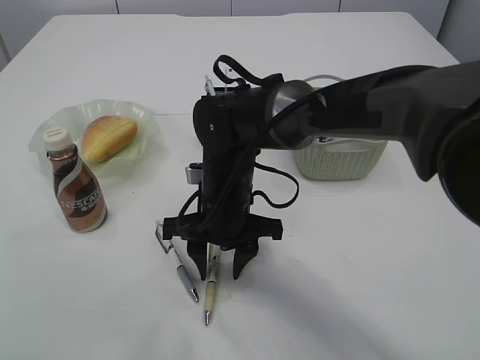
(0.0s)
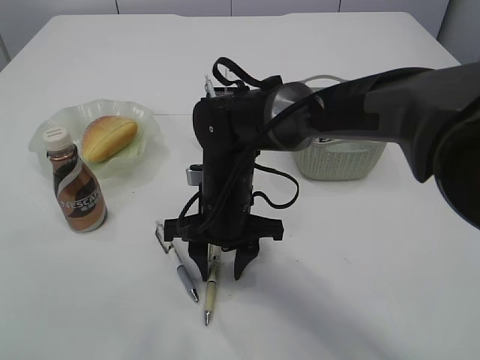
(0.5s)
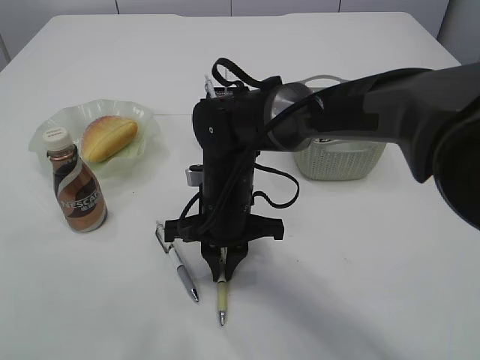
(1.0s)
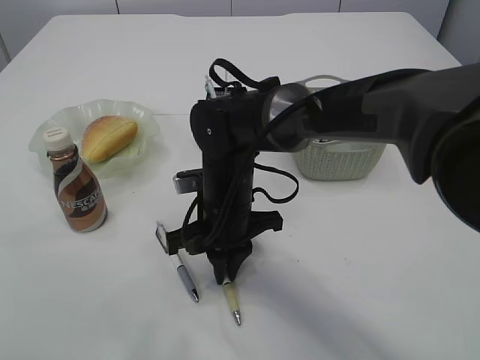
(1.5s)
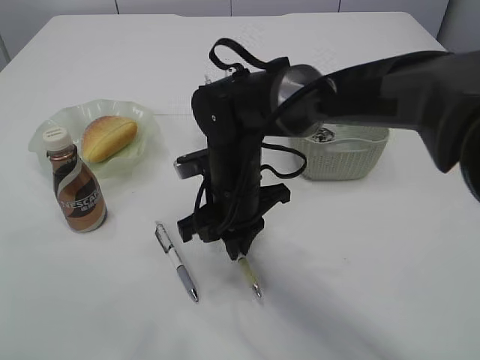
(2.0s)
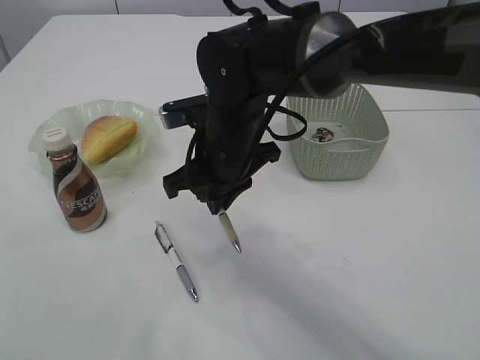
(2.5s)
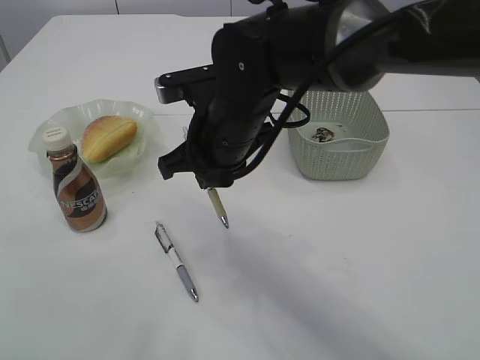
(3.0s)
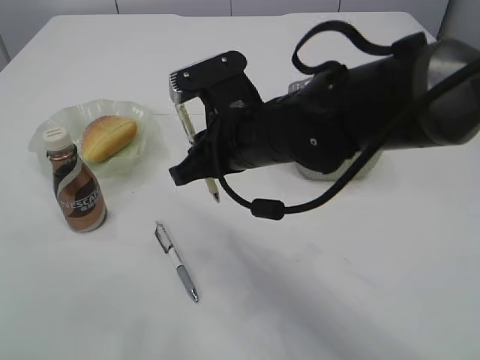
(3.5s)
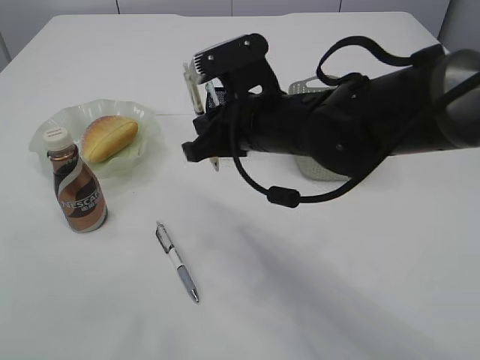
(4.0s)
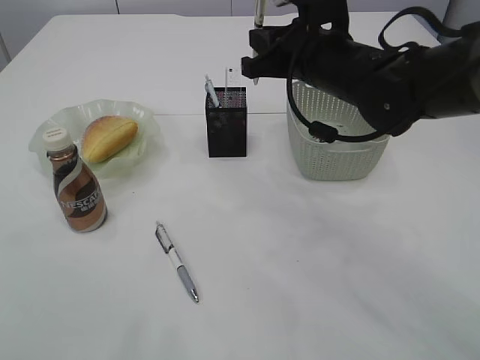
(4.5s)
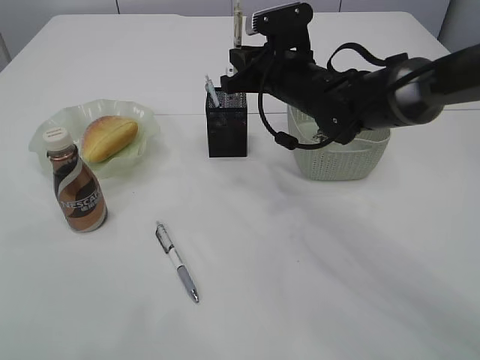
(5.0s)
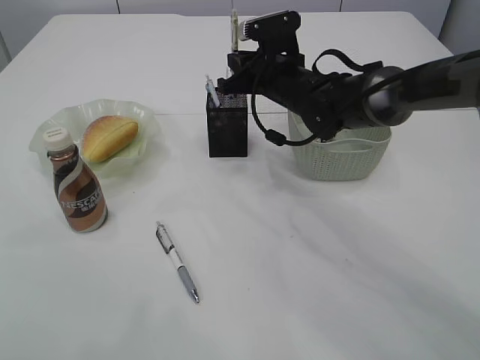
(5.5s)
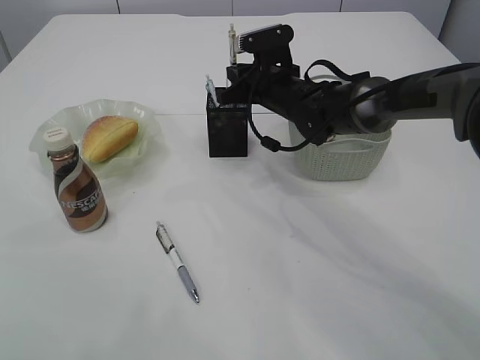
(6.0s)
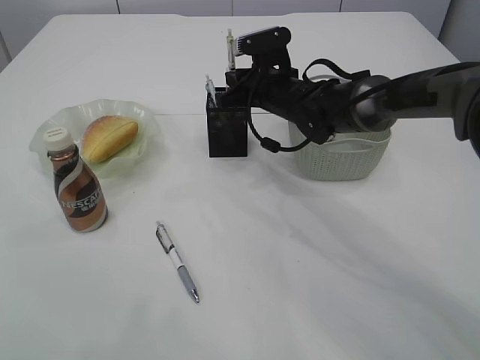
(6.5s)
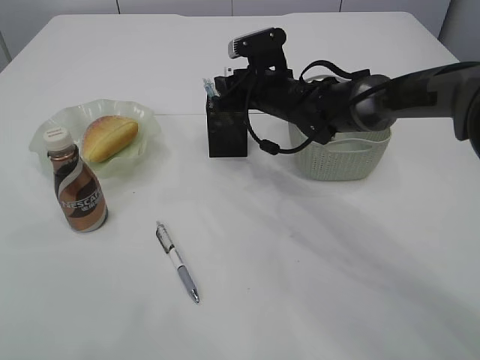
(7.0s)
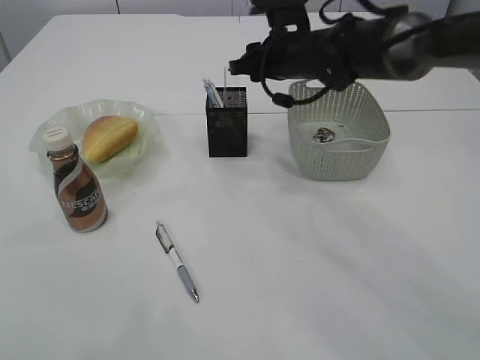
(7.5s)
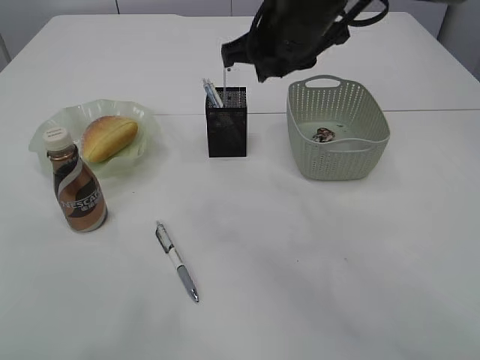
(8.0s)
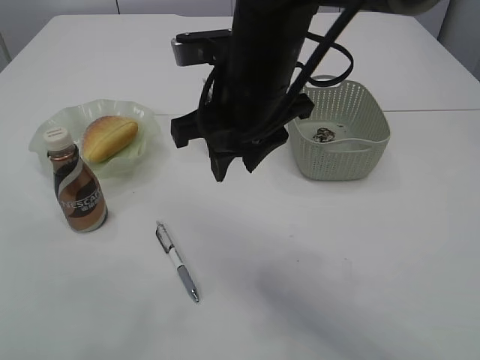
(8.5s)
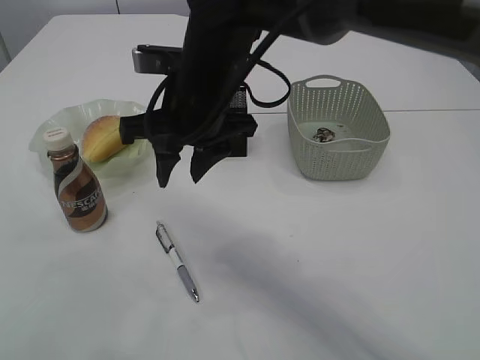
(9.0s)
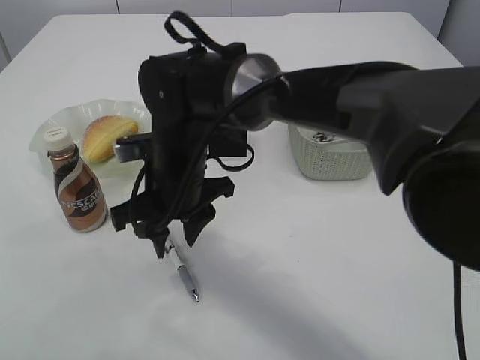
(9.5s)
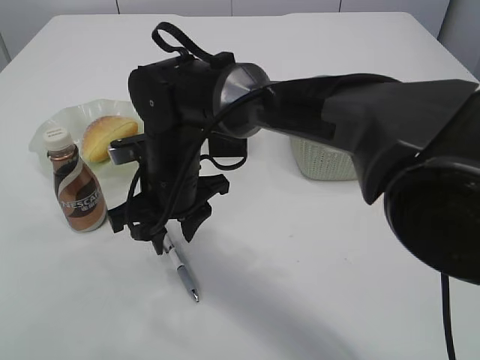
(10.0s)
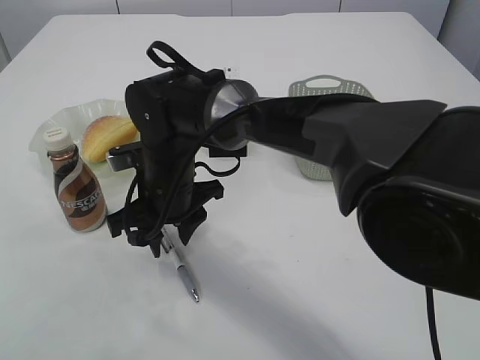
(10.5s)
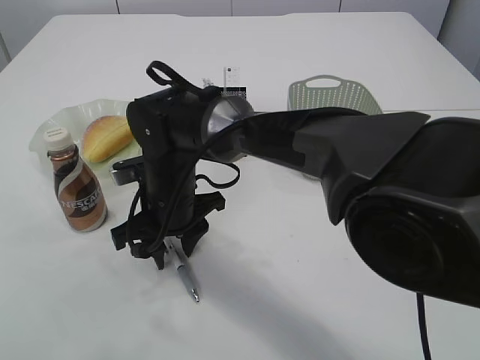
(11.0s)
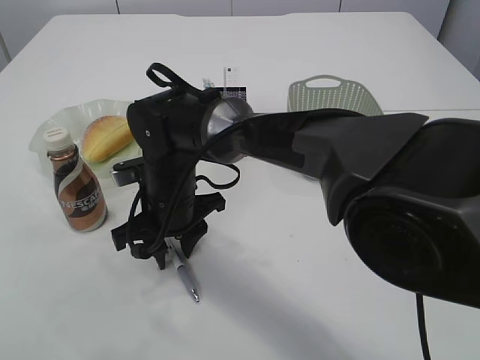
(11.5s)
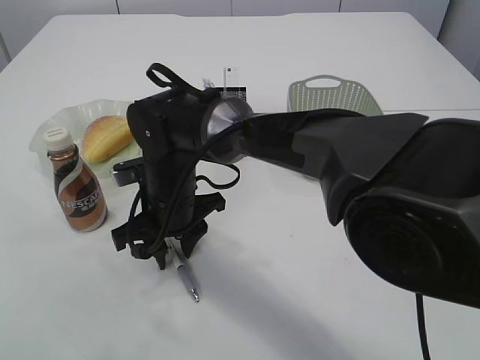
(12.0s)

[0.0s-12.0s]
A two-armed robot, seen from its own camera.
Step, 0.0s to 2.0s: Pick up the pen with right arm.
Step, 2.5s to 7.5s: Place the pen into the pen holder.
0.0s to 2.0s: The right gripper closes up.
2.0s to 4.0s: The right gripper travels upward by some 10 cm.
4.0s to 6.0s: The right gripper travels forward by approximately 15 cm.
6.0s to 8.0s: The right gripper goes roughly 15 cm upward and backward.
8.0s to 10.0s: The right gripper is displaced to the left and downward by roughly 20 cm.

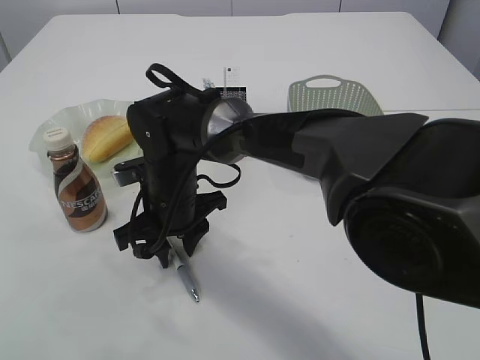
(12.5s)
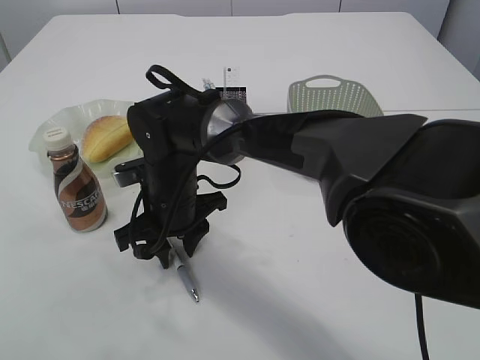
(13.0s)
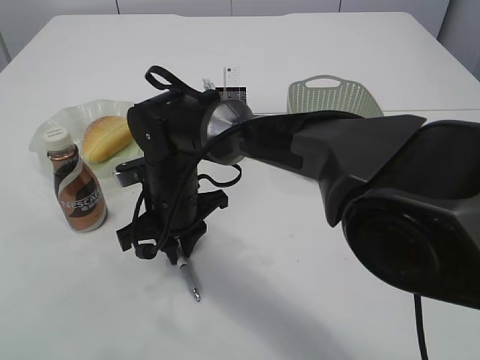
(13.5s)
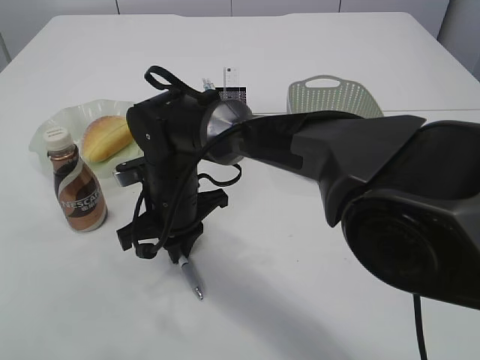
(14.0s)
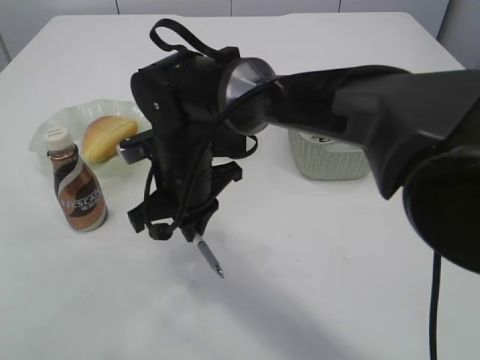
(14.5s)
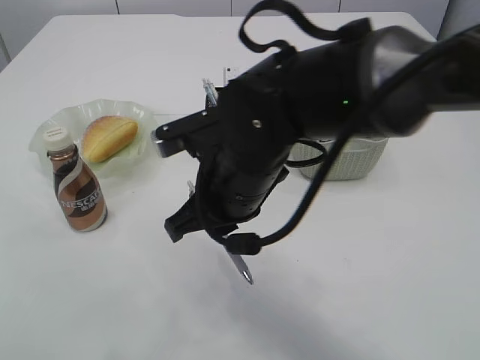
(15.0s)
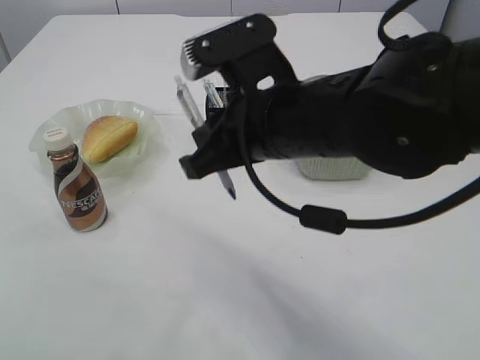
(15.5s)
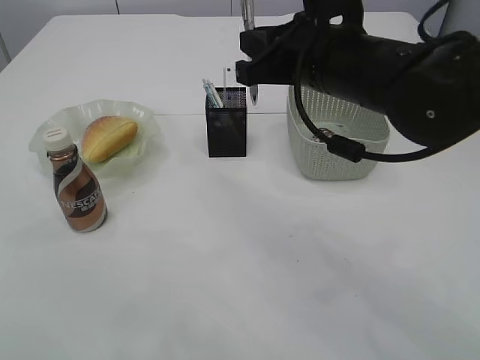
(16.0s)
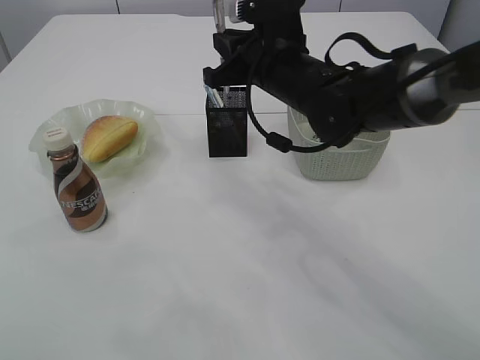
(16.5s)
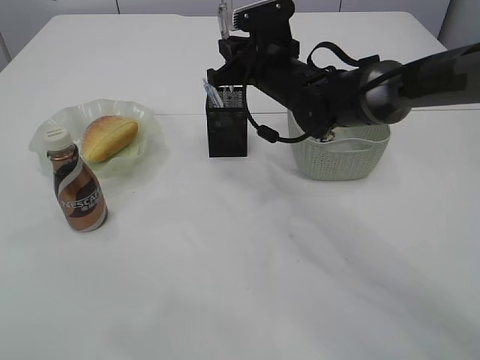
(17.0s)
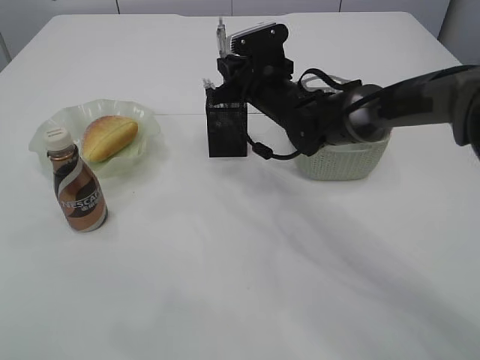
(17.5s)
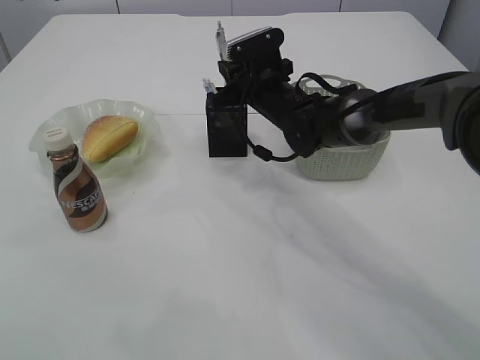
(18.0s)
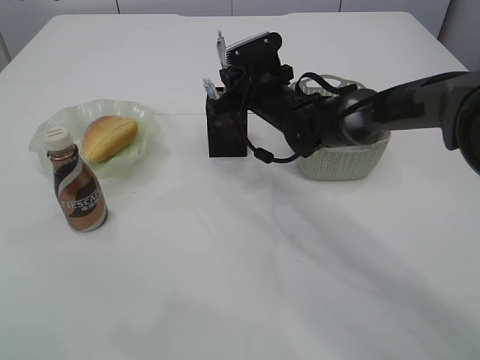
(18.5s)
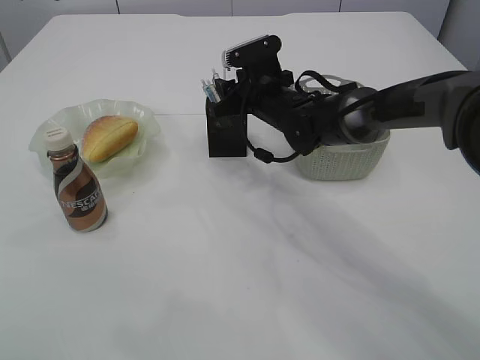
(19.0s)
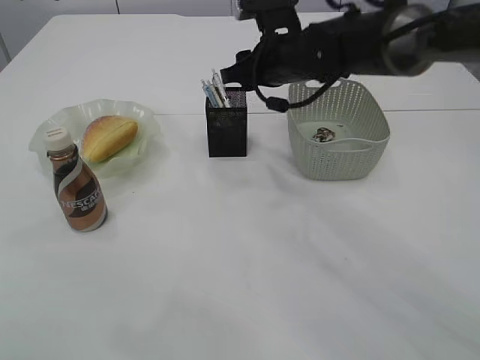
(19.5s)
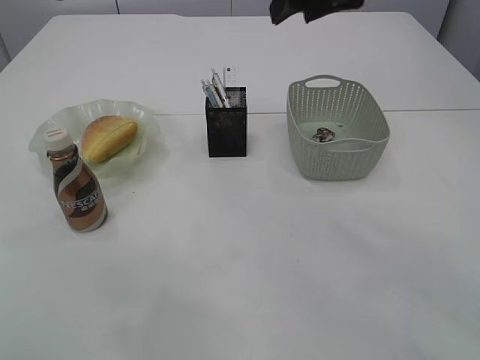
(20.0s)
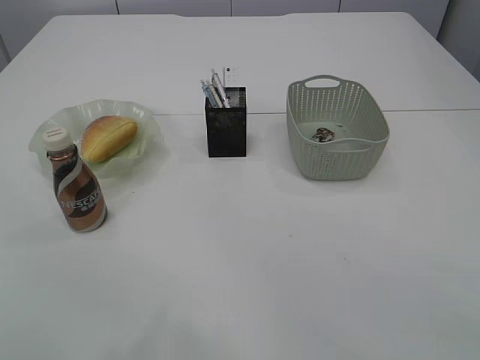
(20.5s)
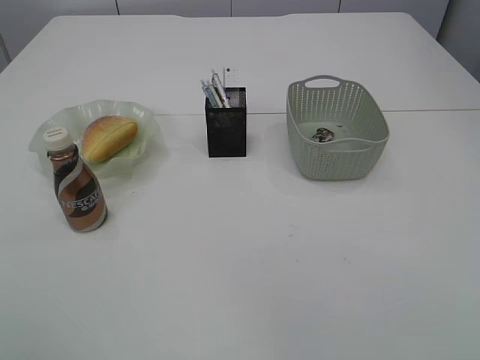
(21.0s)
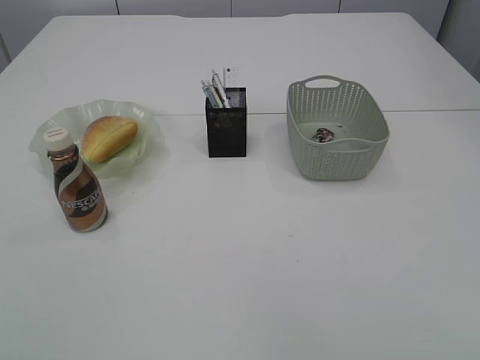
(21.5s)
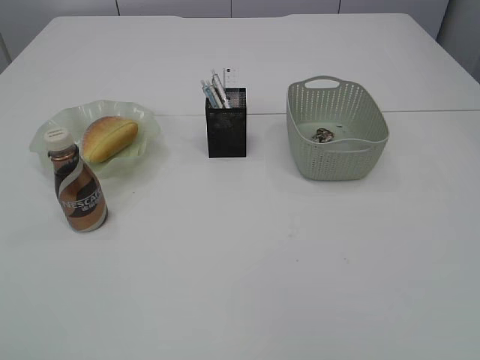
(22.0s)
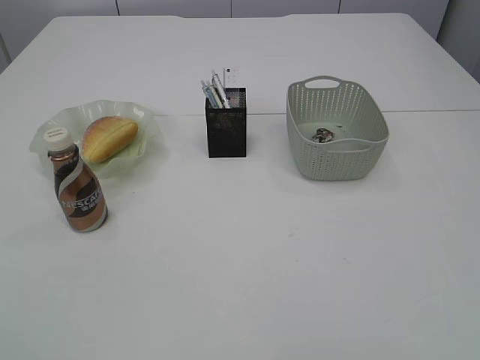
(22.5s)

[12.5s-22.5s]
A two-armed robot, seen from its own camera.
Step, 12.5s to 14.5s: Pick up the pen with right arm.
Step, 15.0s to 19.5s: Place the pen into the pen holder.
12.5s to 14.5s: The right gripper closes its fingers.
14.5s to 16.5s: The right gripper travels to the right, upward and forward by some 15 cm.
16.5s to 18.5s: The right gripper heads forward and downward, covering approximately 10 cm.
18.5s to 20.5s: The right gripper shifts roughly 40 cm upward and backward, and opens its fingers; the left gripper opens its fingers.

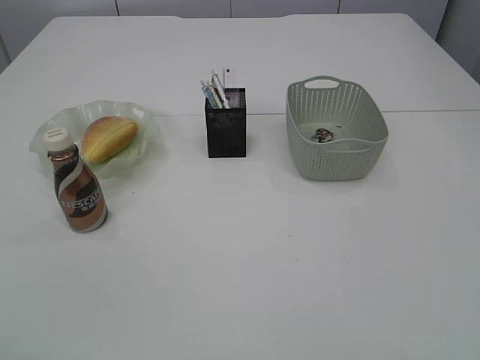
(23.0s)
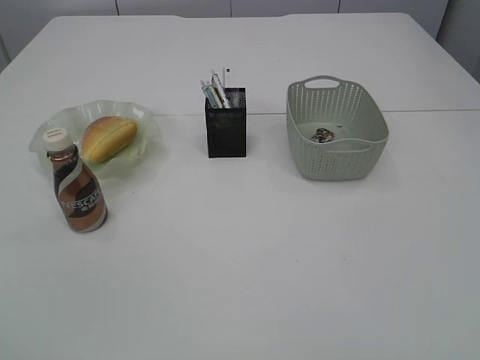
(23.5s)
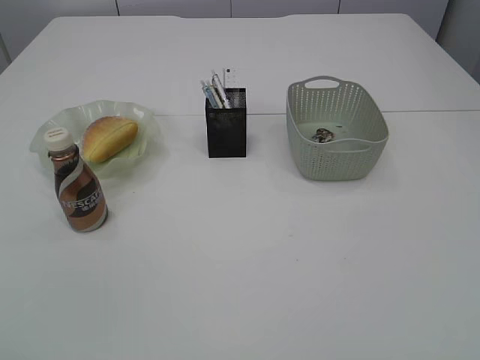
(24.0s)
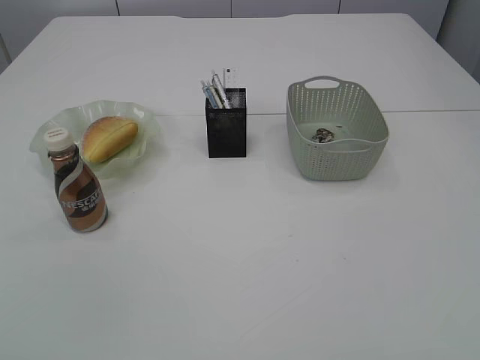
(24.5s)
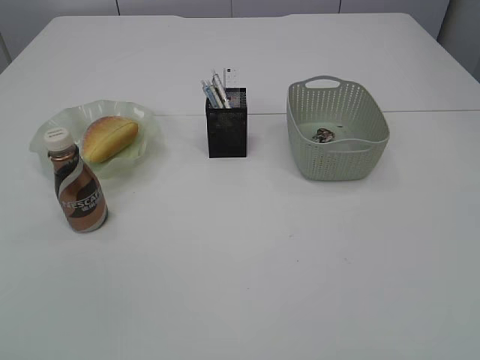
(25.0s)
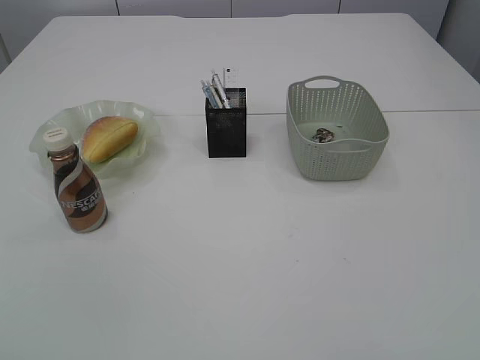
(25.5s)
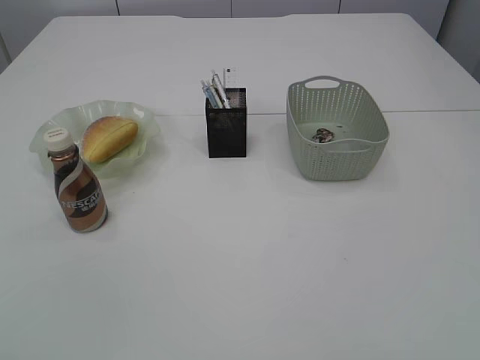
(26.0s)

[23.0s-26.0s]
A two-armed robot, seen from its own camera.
24.5s to 26.0s: The two grippers keep their place.

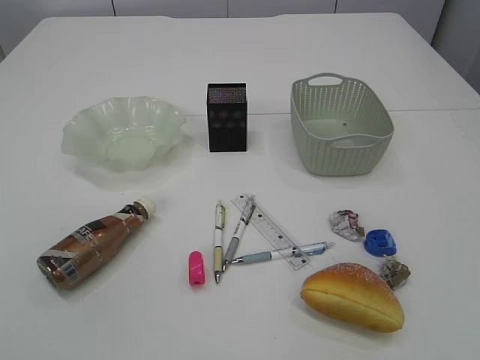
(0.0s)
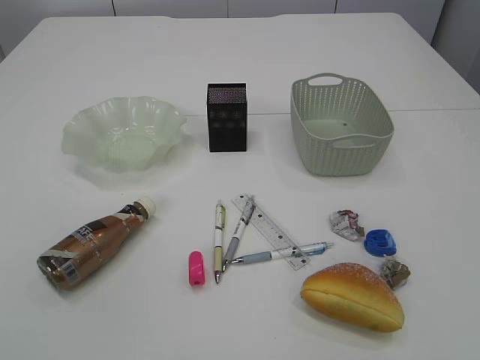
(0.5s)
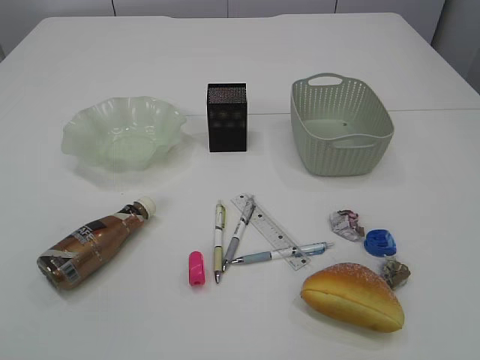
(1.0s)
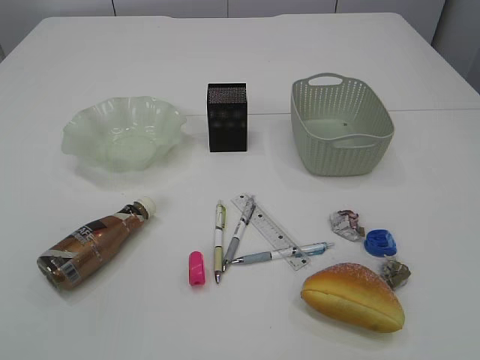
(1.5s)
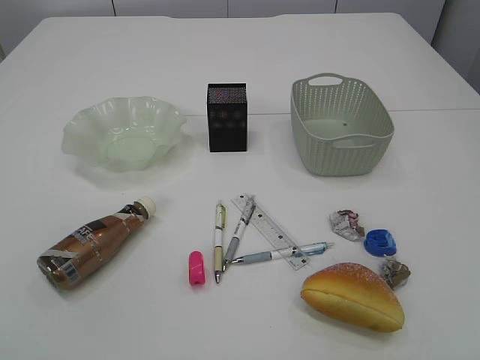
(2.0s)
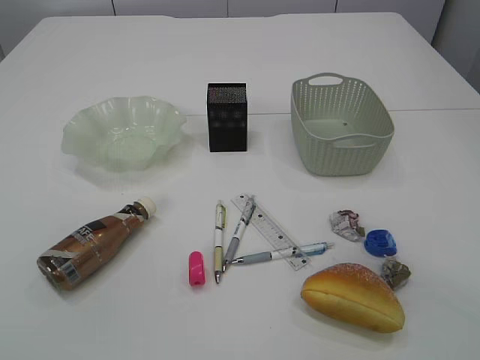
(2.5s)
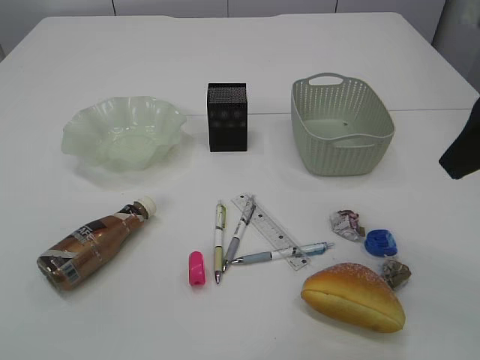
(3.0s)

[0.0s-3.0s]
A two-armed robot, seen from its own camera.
1.5s to 3.0s: The right gripper goes some 25 cm forward.
